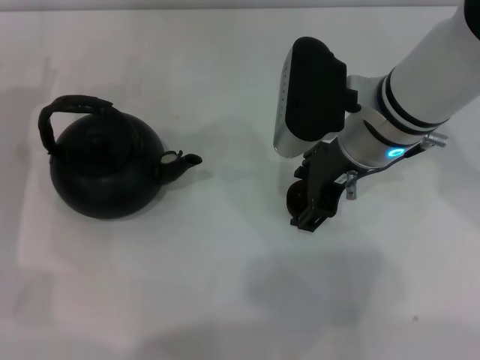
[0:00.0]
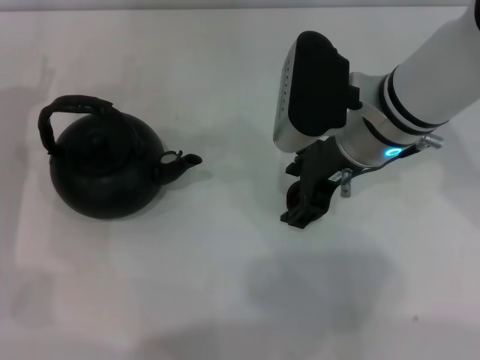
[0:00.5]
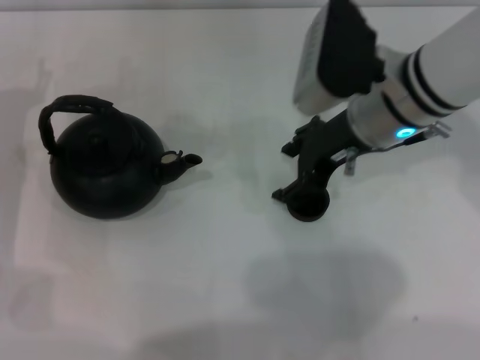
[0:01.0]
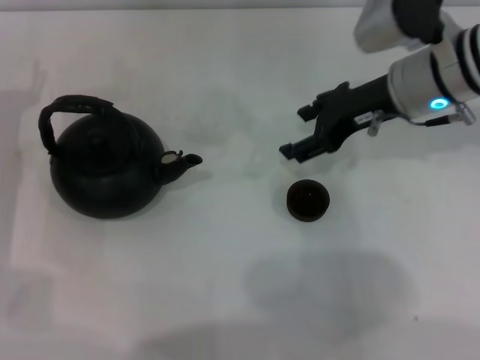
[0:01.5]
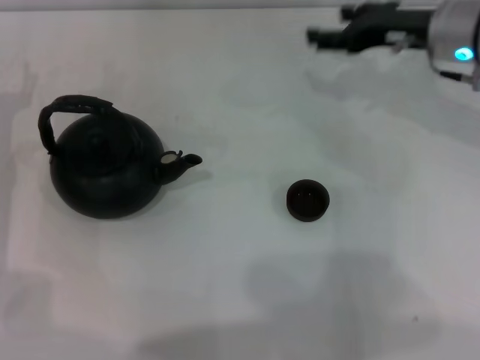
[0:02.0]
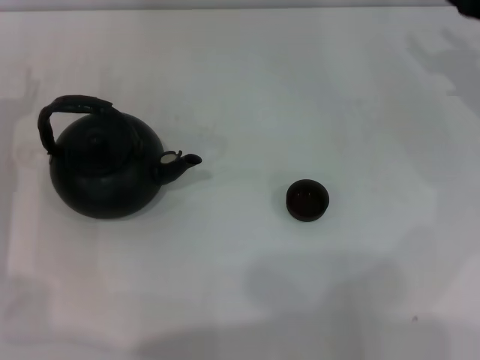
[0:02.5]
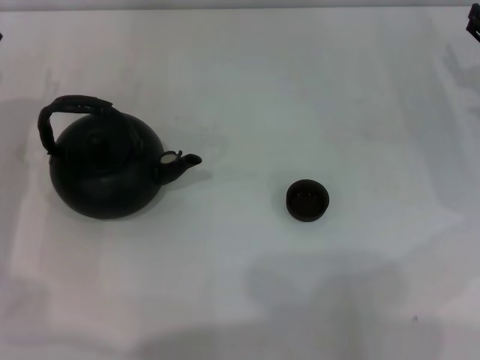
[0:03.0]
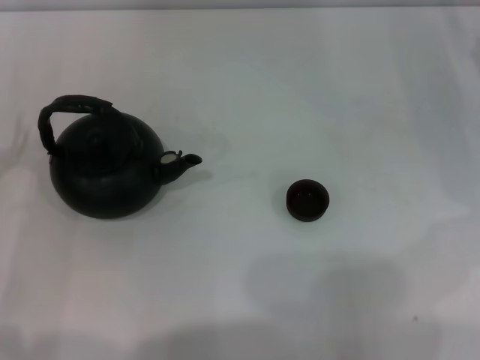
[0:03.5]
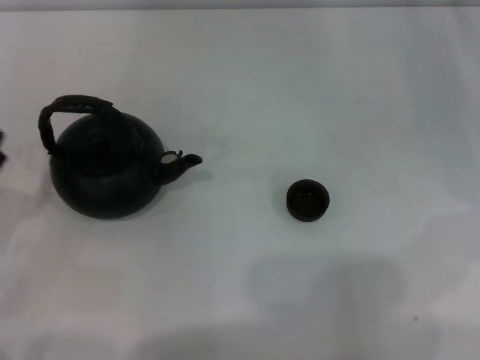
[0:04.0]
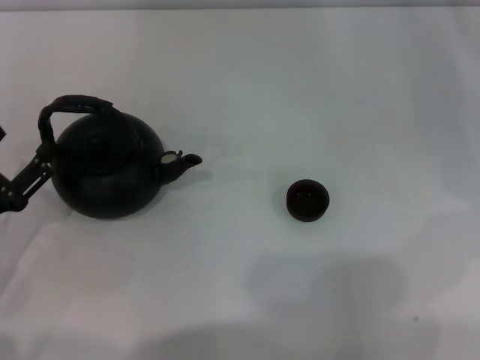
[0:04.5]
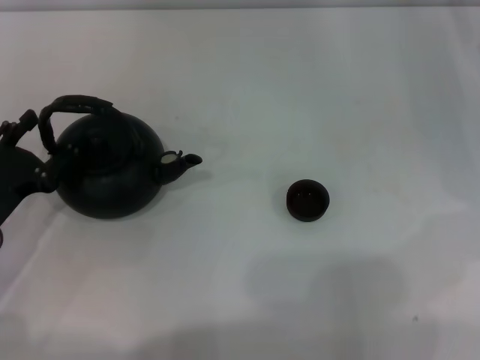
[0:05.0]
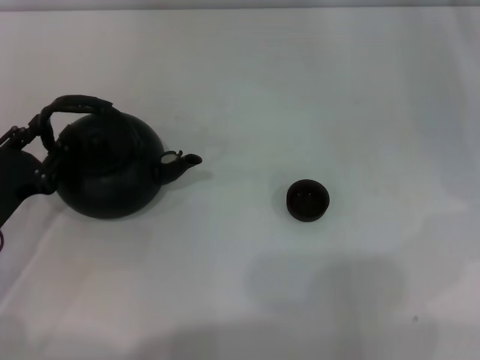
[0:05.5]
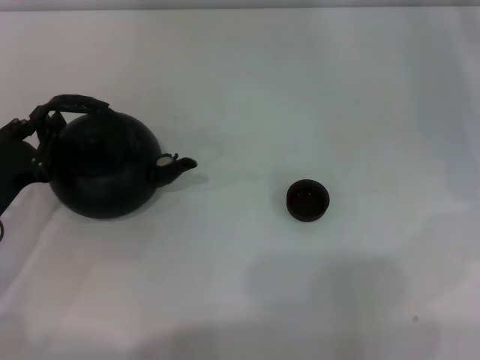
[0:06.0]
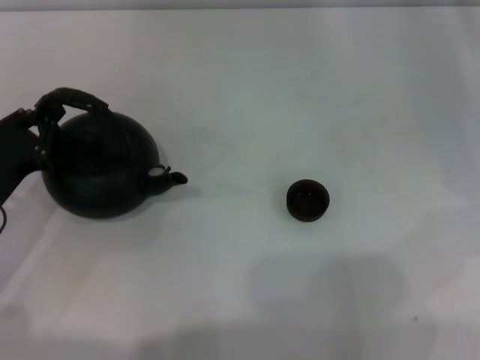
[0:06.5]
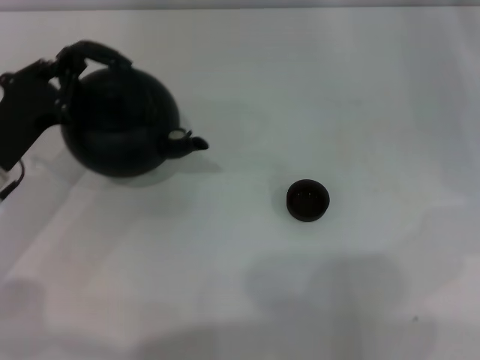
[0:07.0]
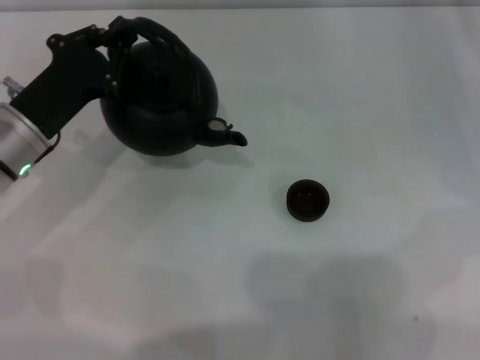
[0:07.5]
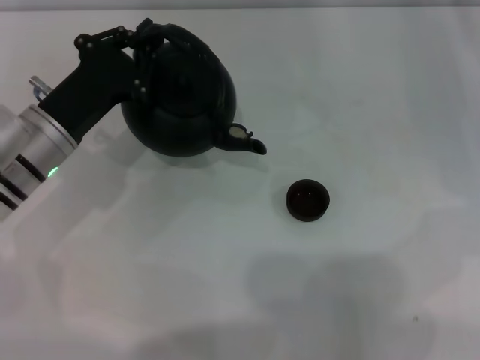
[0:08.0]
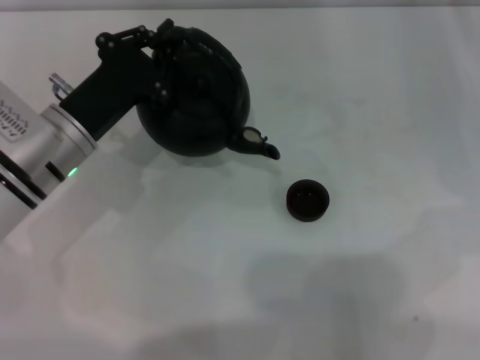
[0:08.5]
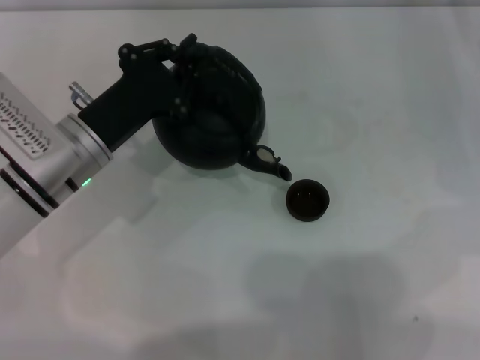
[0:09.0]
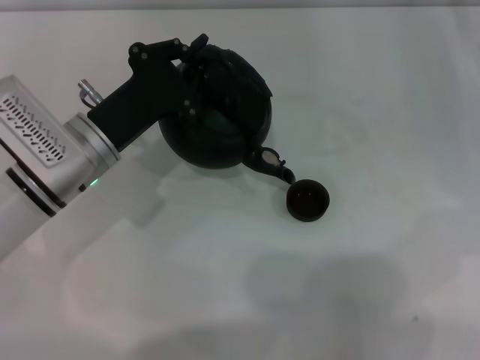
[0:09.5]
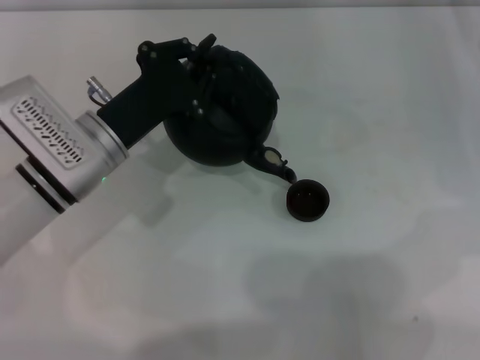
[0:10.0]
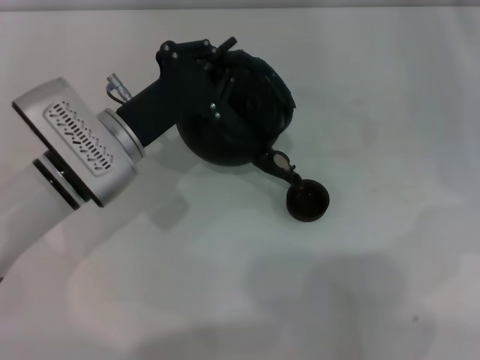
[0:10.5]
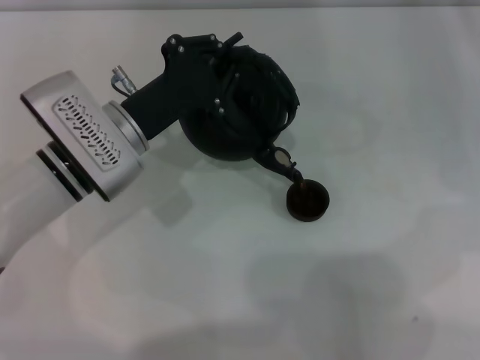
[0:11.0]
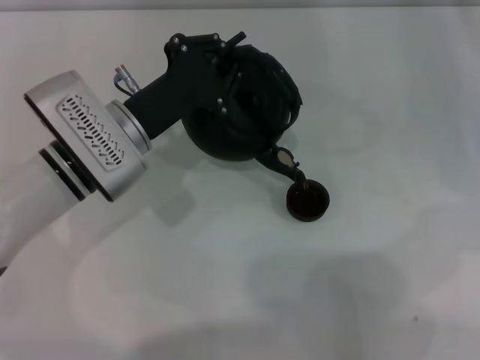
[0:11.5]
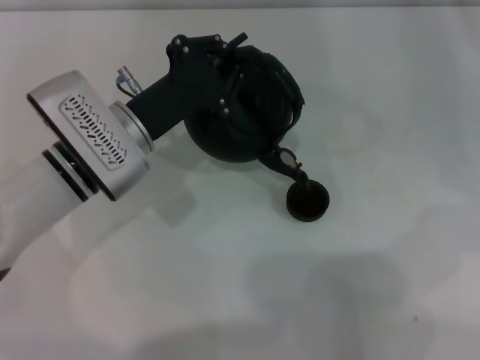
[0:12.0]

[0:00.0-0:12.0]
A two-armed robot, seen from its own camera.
Task of the whole recording: Grasp the handle of the teapot with one hand and pour tea into the teacup.
Step, 0:01.5 to 0:08.0: Pick up the teapot with the left gripper.
0:00.0 to 0:02.0: The right gripper moves to the right and forward, some 15 cm.
0:02.0 to 0:04.0: The left gripper goes some 15 cm backward. The right gripper is displaced to the right and downward by roughly 15 cm.
0:04.0 to 0:06.0: The left gripper shifts roughly 5 cm forward, and closes.
0:06.0 to 0:08.0: The left gripper moves forward and to the right, some 10 cm.
0:08.0 to 0:10.0: There are only small adjustments of the grippers.
0:10.0 to 0:12.0: There are only small adjustments of the grippers.

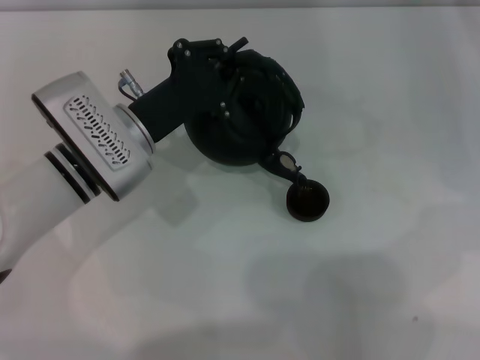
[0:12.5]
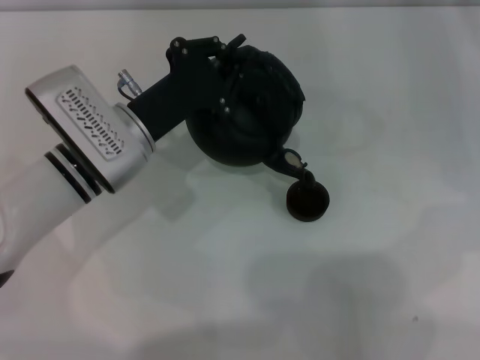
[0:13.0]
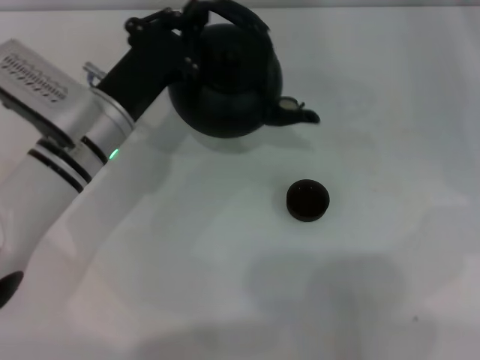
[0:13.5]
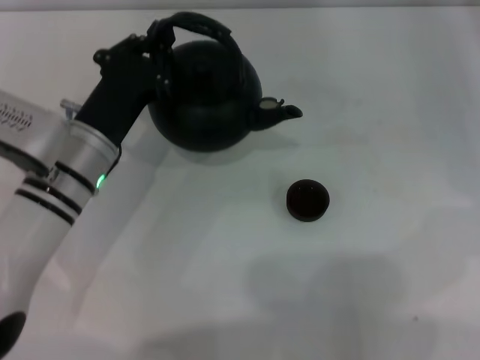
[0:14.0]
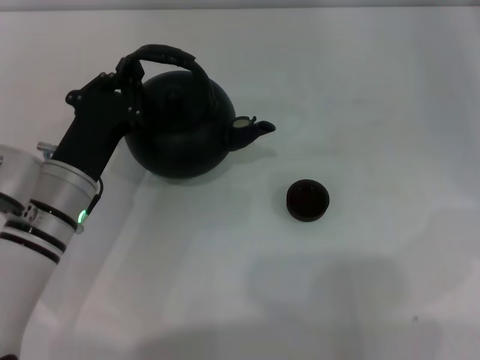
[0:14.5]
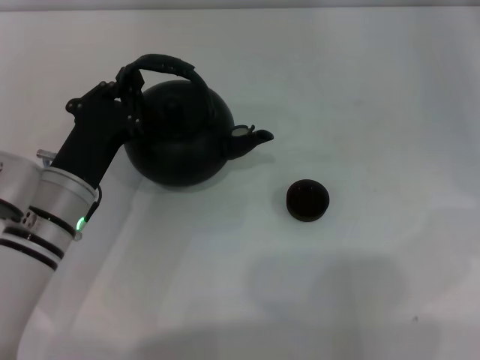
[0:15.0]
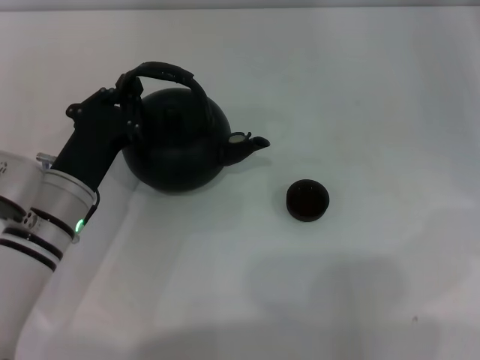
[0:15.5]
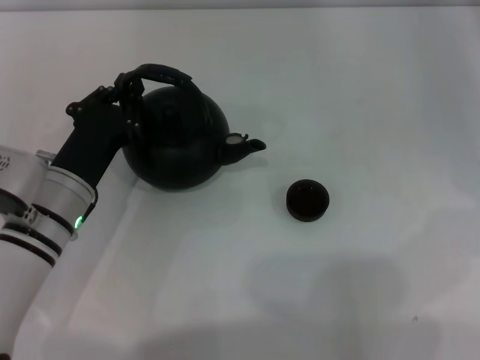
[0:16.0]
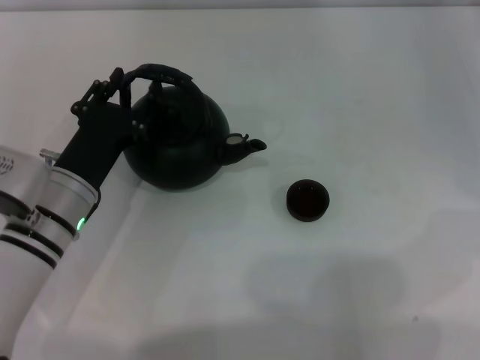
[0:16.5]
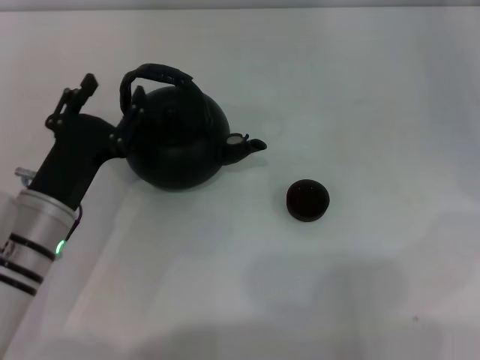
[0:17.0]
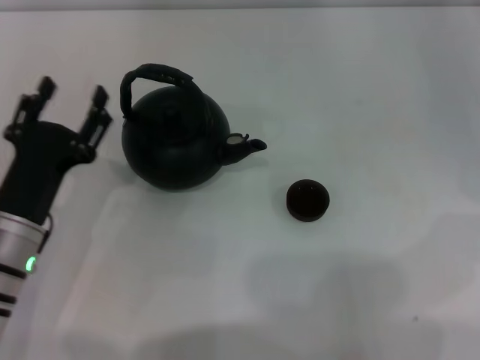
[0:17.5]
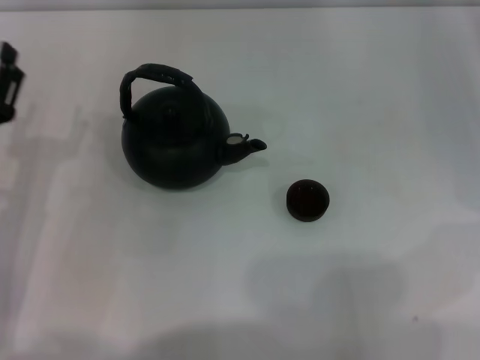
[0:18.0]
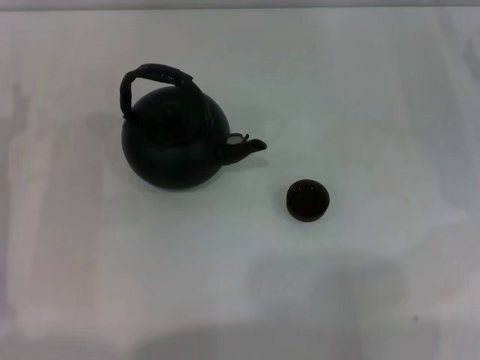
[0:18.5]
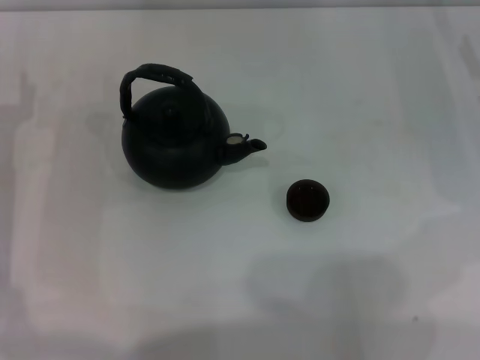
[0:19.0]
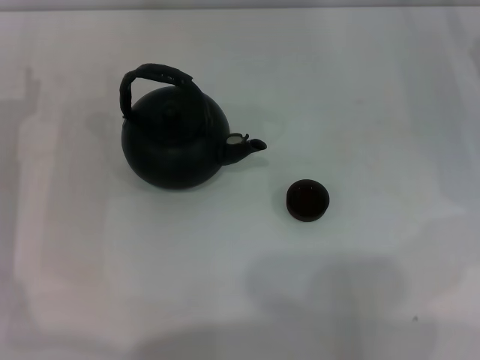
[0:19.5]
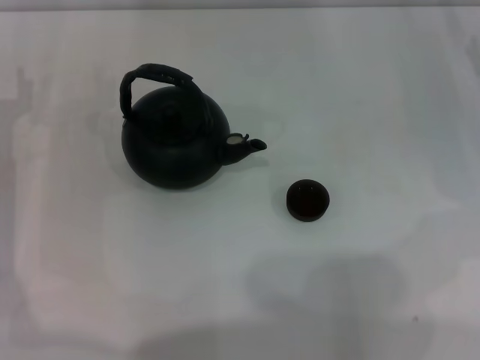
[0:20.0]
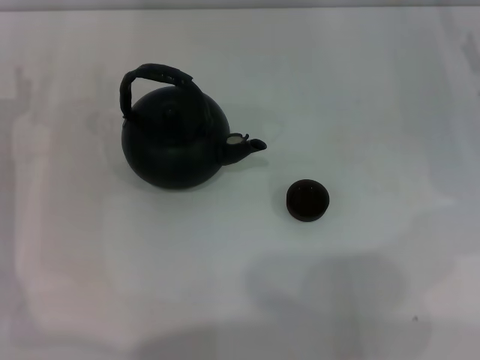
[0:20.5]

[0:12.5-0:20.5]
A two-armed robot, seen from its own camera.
Task of the whole recording: Grasp the handle of the teapot with one hand and pour tea into the teacup.
Step, 0:13.5 to 0:17.5: Put down the teapot with the left gripper.
0:12.5 to 0:14.5: The left gripper travels backward by some 5 cm.
0:14.5 to 0:16.5: The grippers stay close to where they were, moving slightly.
0:16.5 to 0:18.5: The left gripper travels to the left by some 10 cm, and opens its fingers.
